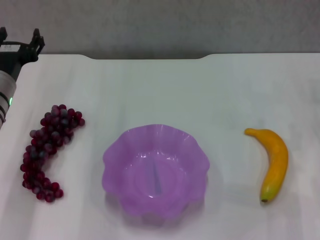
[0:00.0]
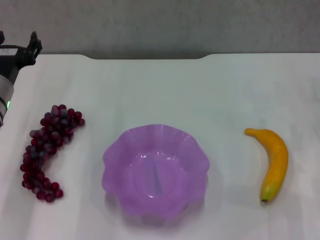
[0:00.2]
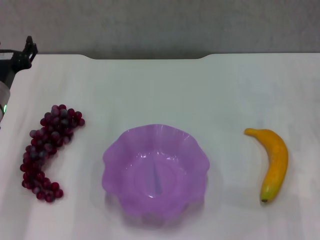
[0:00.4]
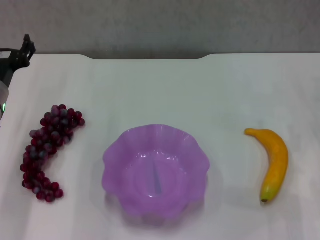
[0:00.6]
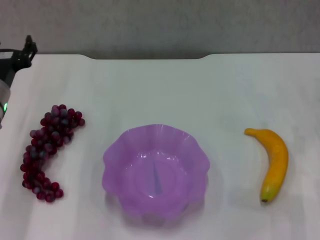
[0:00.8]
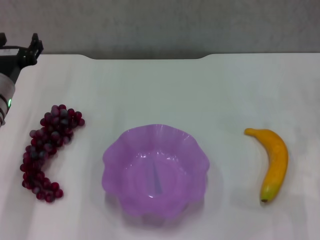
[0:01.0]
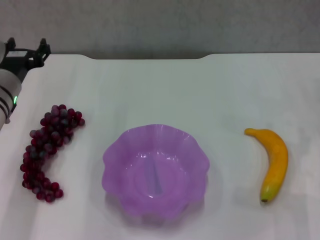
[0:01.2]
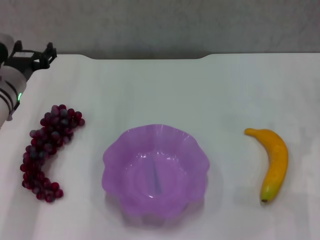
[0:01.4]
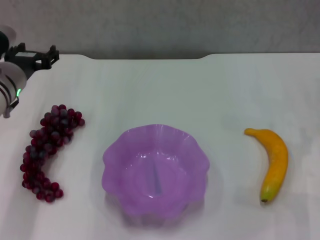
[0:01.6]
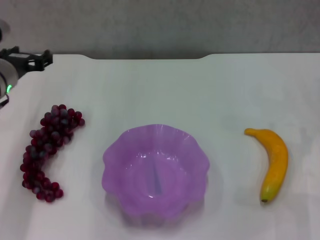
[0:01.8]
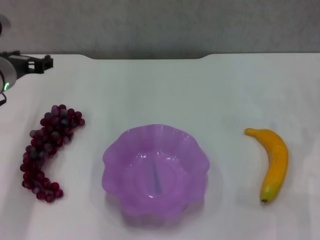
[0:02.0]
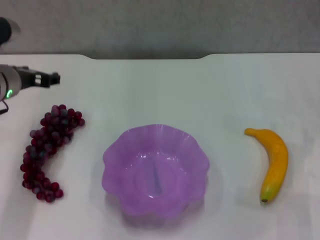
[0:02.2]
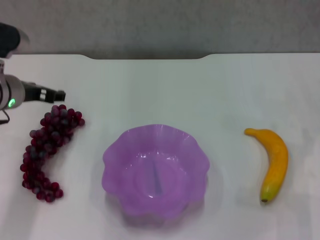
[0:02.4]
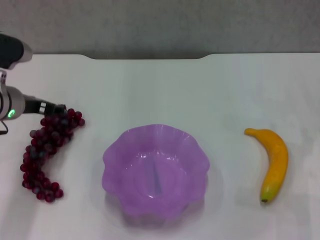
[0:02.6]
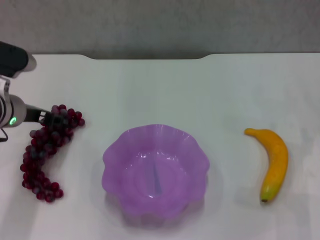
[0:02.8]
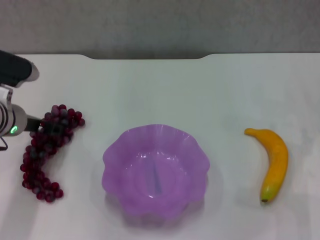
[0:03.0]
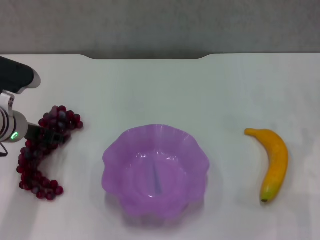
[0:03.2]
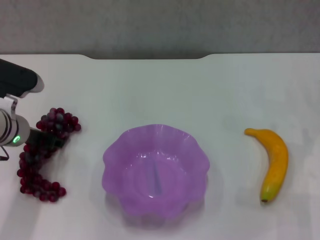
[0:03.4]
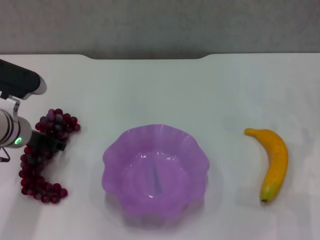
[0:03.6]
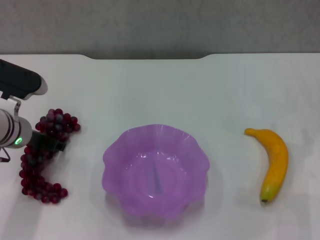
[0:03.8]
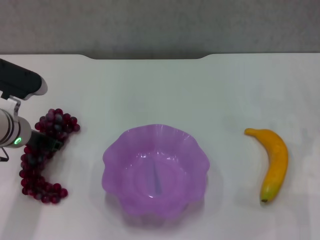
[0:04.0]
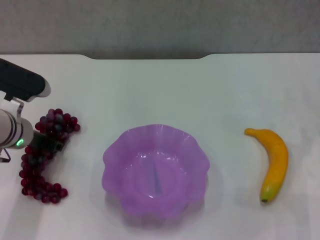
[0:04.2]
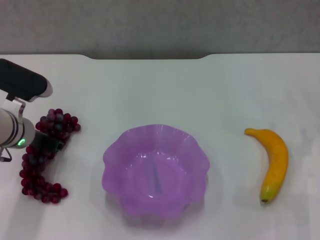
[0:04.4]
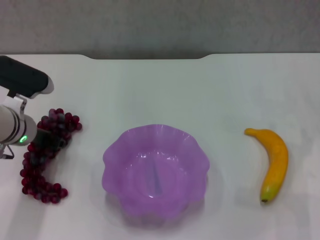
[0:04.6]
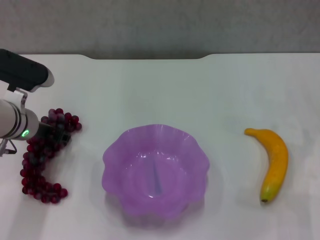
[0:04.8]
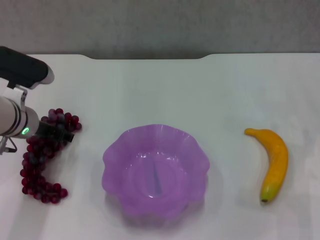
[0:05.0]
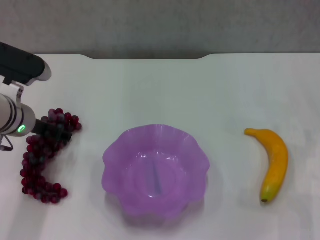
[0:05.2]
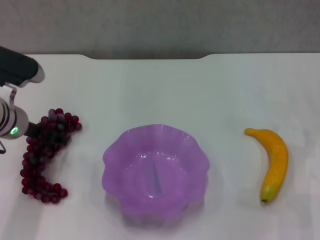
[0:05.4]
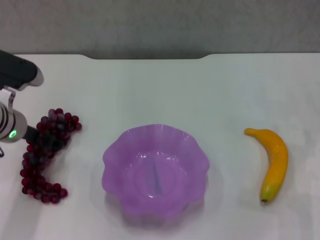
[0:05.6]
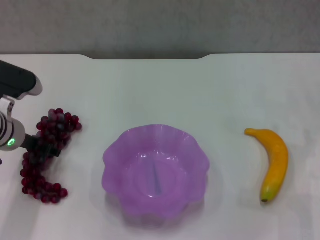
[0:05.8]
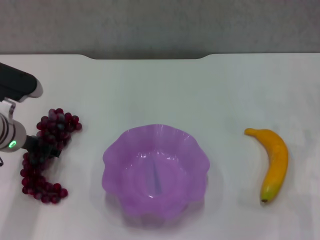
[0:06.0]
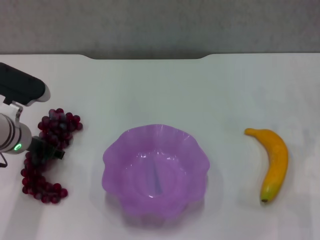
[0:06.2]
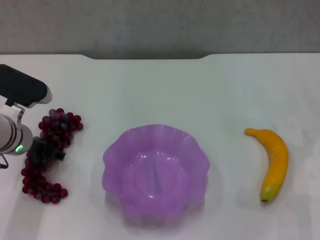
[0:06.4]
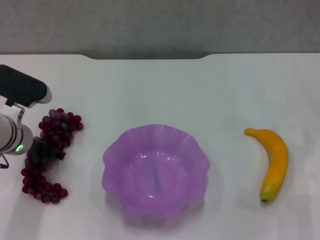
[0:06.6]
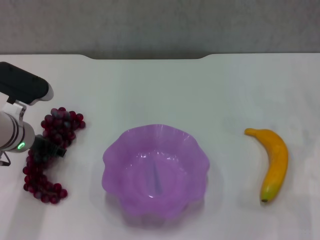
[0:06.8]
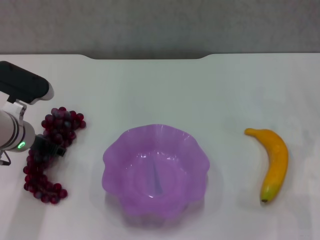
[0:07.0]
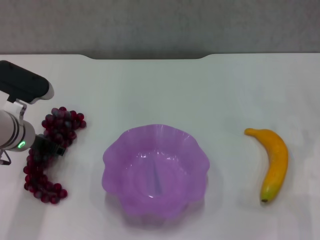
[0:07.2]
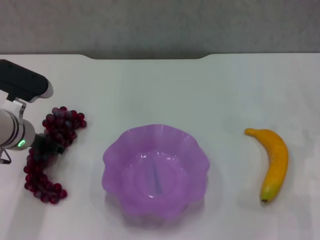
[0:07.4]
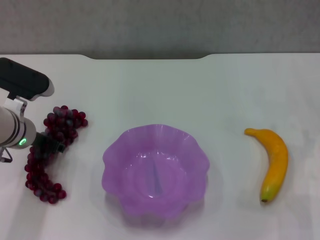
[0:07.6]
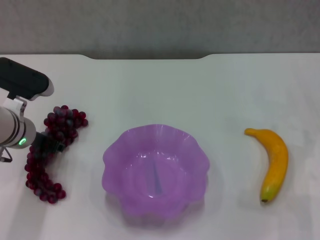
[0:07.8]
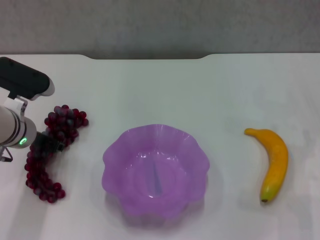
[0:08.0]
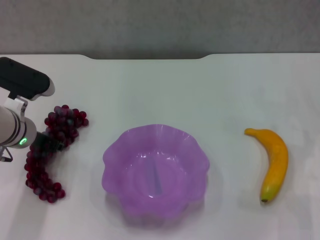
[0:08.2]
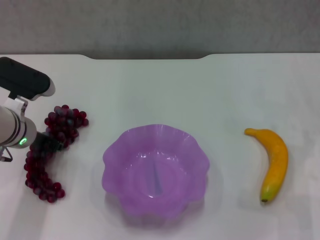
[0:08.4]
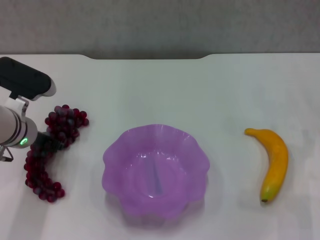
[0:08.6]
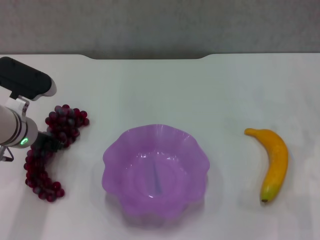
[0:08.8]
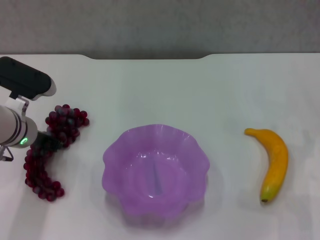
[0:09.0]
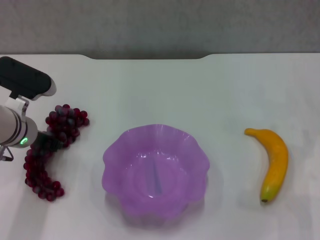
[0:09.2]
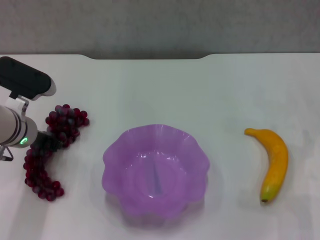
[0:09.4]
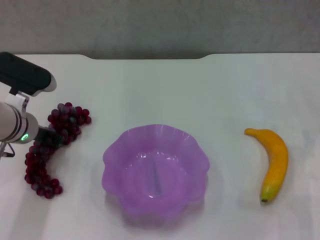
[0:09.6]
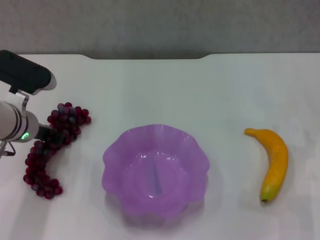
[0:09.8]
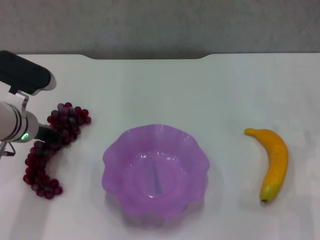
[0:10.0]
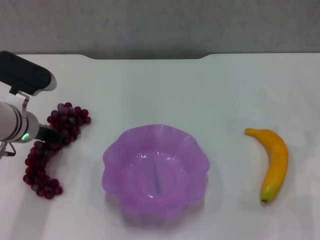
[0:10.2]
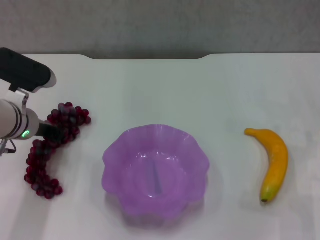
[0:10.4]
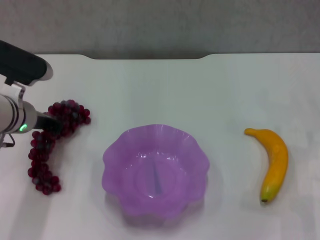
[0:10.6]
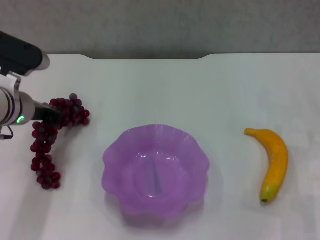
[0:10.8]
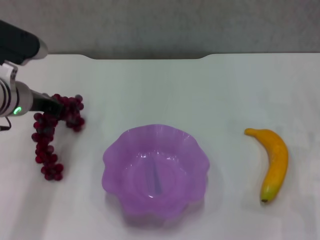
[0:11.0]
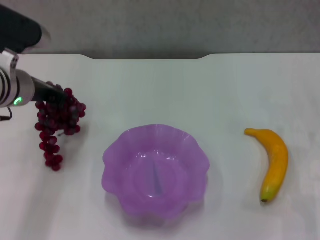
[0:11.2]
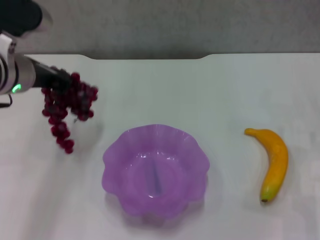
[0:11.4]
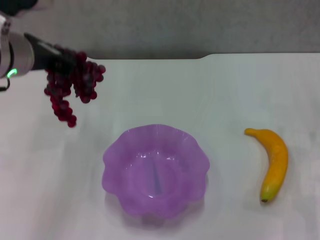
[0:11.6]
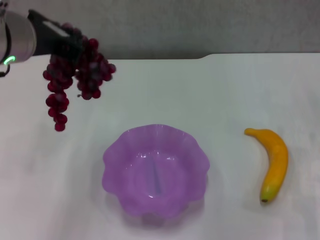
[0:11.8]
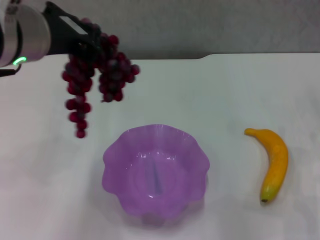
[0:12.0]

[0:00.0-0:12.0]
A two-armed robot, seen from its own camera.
Step, 0:00.0 to 0:10.2: Grasp the grape with left gripper.
0:00.0 to 0:01.6: There are only small adjustments of the grippers.
0:03.0 to 0:07.6: The grippers move only a little.
0:07.6 to 0:10.4: The two grippers keep their place.
0:10.4 to 0:12.0: The left gripper is displaced upward, backward and to the right by roughly 25 cm.

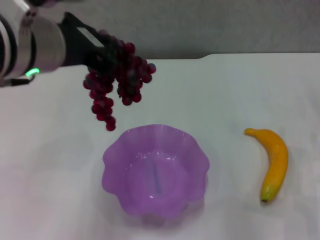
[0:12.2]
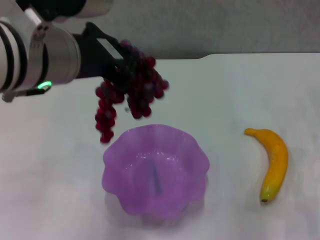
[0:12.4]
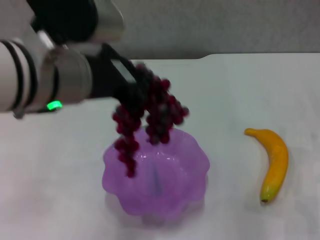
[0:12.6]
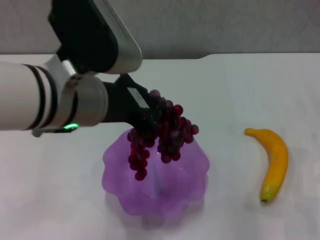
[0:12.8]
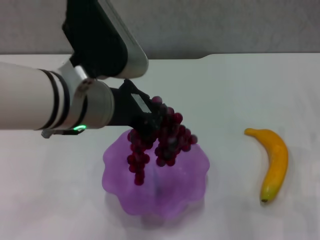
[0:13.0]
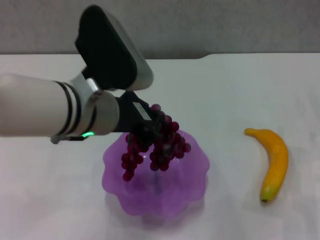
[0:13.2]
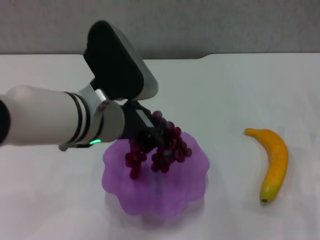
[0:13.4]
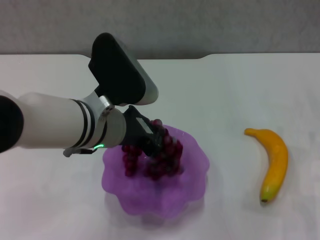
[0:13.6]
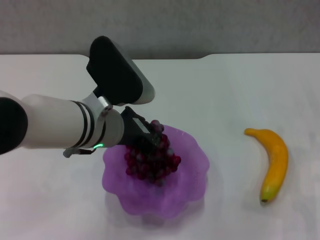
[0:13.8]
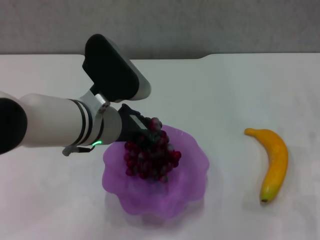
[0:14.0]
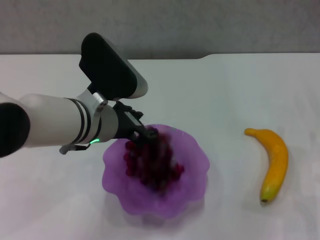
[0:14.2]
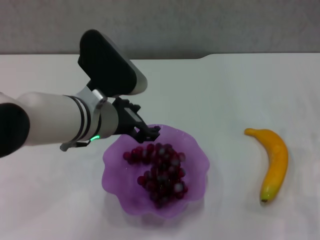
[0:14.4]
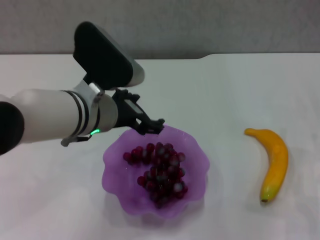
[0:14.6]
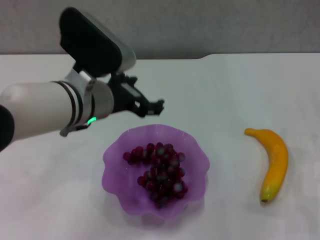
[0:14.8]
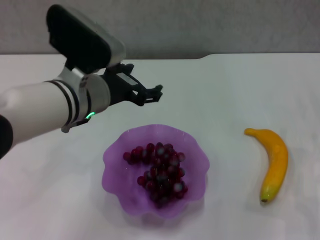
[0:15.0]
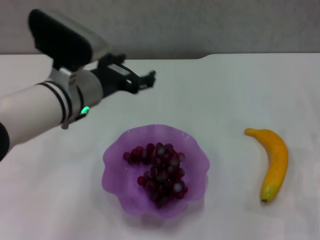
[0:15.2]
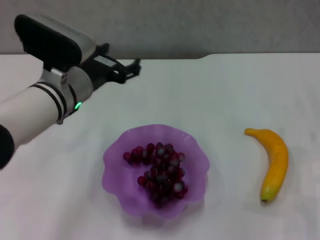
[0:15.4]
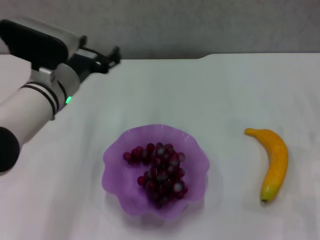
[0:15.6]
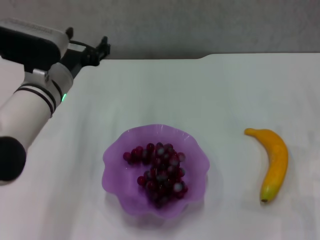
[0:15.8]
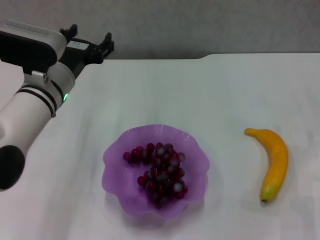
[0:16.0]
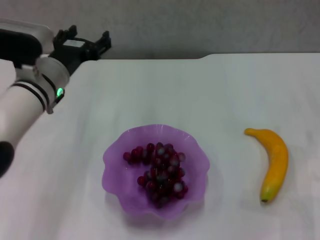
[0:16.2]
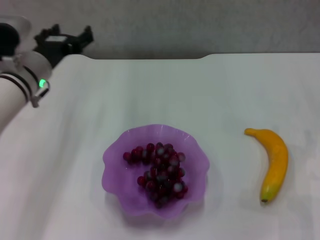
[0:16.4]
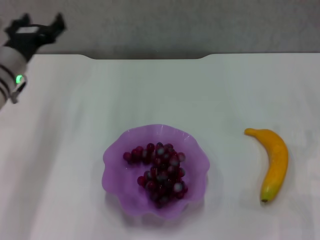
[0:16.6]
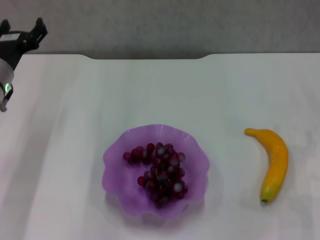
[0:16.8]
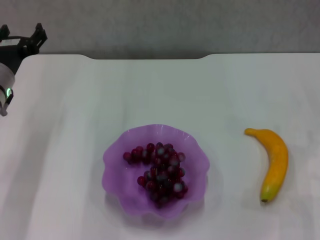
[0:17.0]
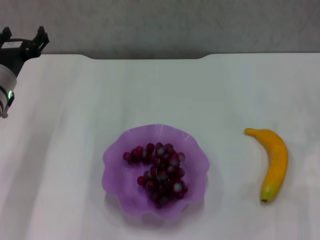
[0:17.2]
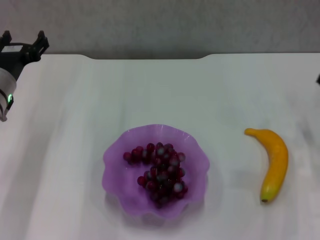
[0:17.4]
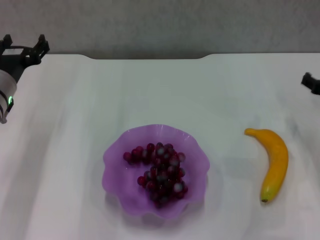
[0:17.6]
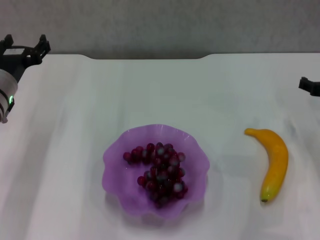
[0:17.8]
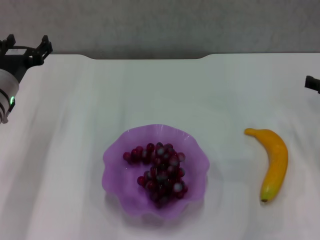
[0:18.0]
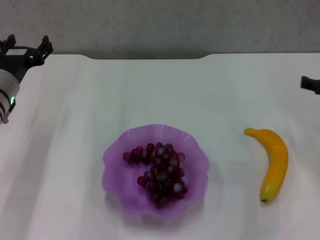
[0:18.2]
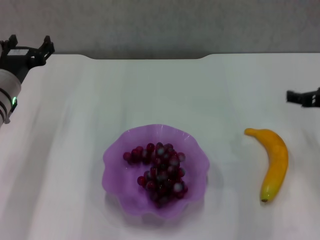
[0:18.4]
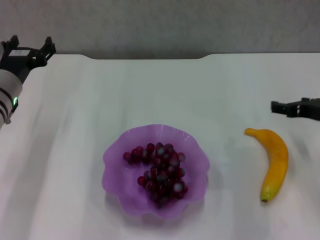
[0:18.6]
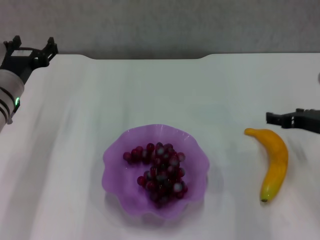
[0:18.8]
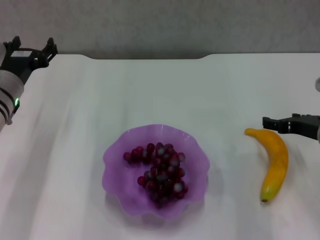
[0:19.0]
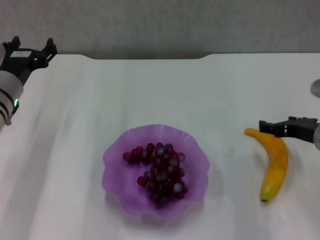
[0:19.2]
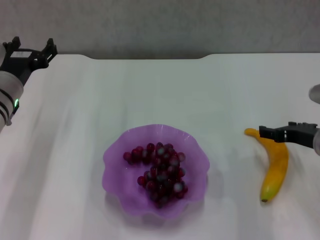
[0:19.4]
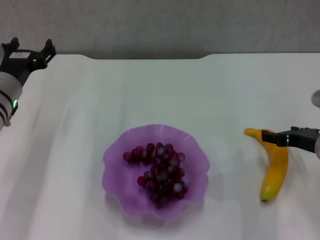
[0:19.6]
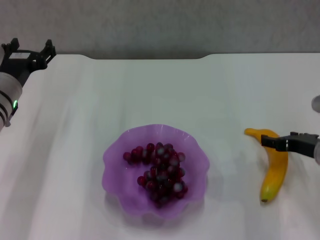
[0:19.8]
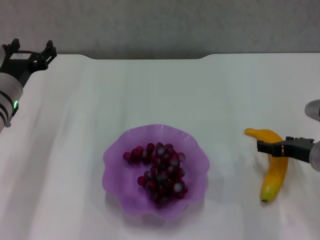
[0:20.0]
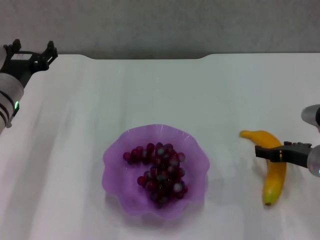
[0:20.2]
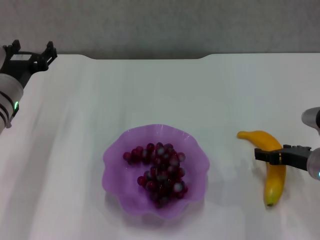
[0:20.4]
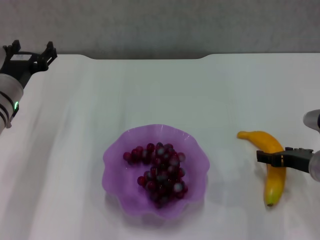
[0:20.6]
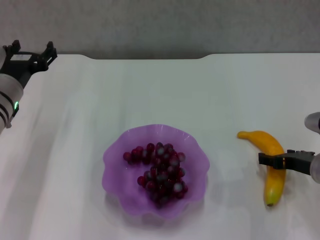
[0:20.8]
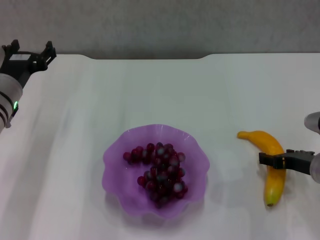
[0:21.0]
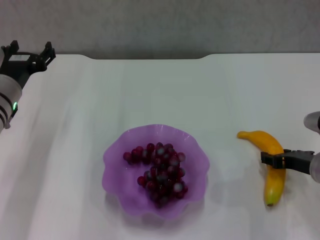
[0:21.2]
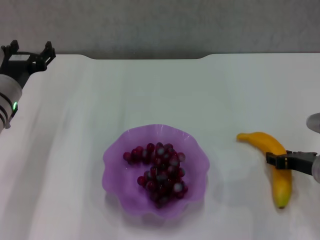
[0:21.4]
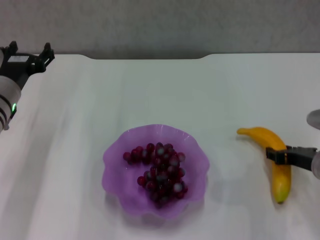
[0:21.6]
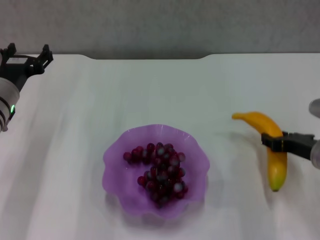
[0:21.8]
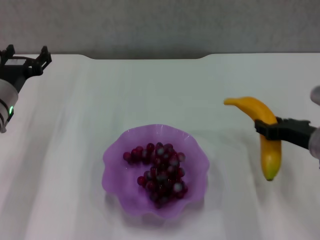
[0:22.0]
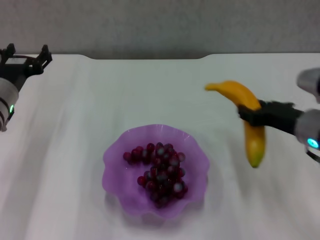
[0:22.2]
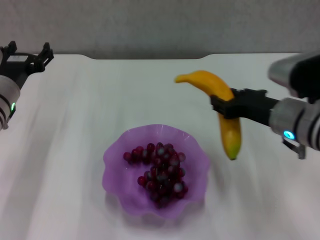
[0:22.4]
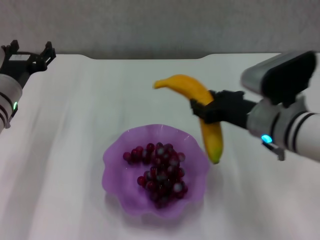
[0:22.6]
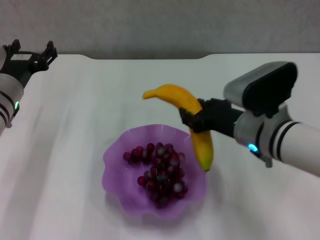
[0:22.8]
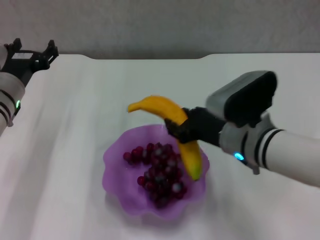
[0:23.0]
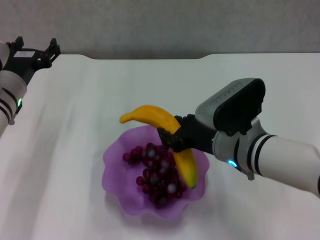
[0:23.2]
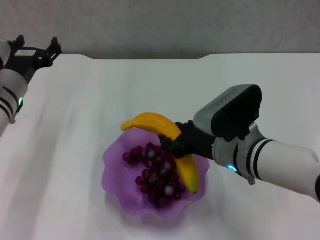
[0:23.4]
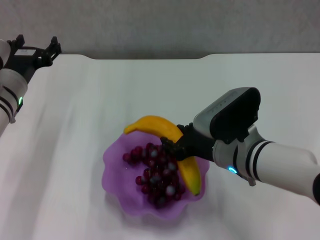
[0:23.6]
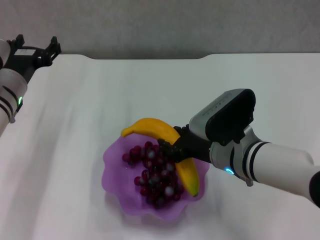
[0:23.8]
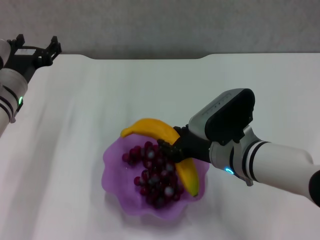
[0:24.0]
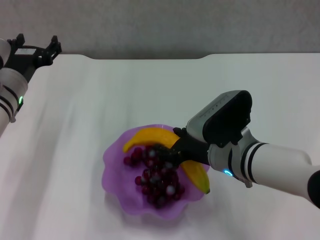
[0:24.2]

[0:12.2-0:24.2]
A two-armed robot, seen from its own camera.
Step, 0:14.4 to 0:21.4: Grasp the banana with right gripper.
0:12.2 to 0:13.8: The left gripper moves downward, approximately 15 cm.
0:13.8 to 0:15.2: The left gripper opens.
0:15.2 to 0:16.6: The left gripper shifts approximately 15 cm to the left and forward.
0:16.6 to 0:18.2: The right gripper travels upward by some 5 cm.
0:18.2 to 0:19.8: The right gripper goes approximately 5 cm downward.
0:19.8 to 0:21.2: The grippers make only small movements.
0:21.2 to 0:22.6: The right gripper shifts roughly 15 cm to the left and upward, and closes.
0:22.6 to 0:24.2: The right gripper changes place by about 5 cm.
